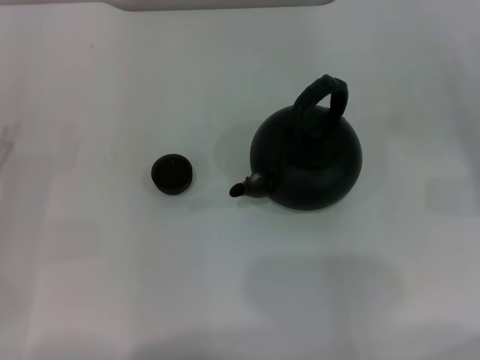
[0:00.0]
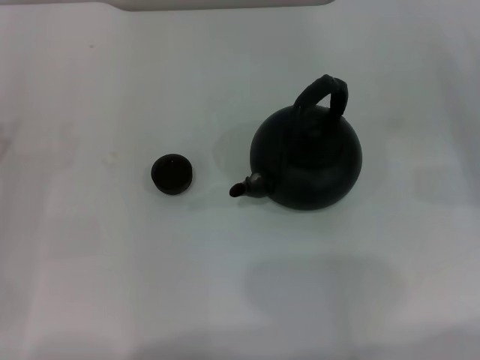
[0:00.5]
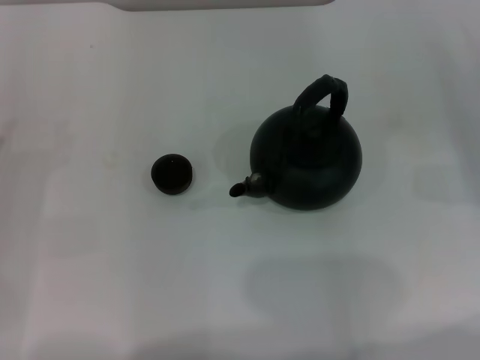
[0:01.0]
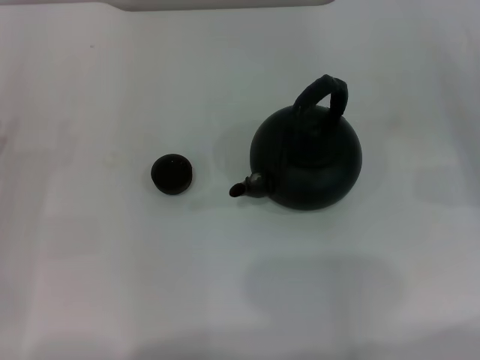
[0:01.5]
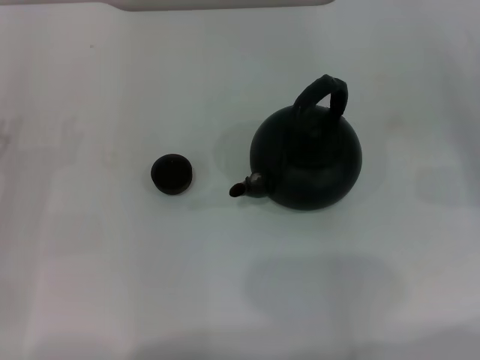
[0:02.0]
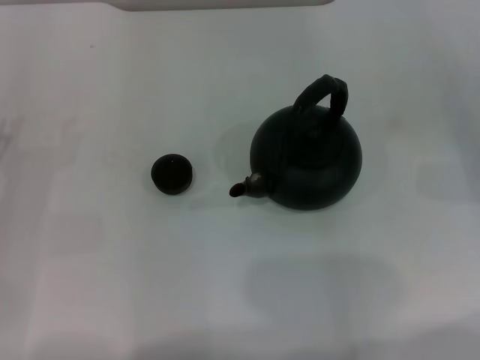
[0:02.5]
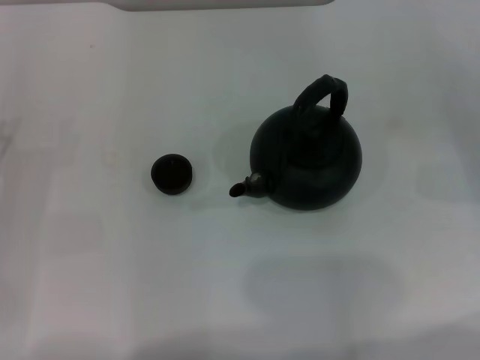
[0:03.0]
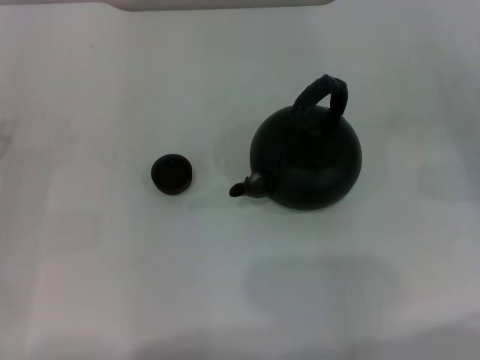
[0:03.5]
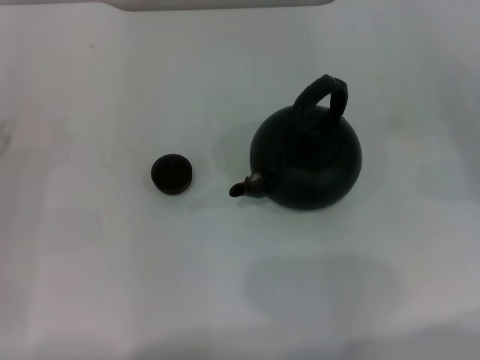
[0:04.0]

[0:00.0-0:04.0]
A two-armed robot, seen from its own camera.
Task of the whole recording: Grasp the handle of the teapot with one hand and pour tea into the teacup.
0:02.0 to 0:04.0: Neither gripper changes place.
